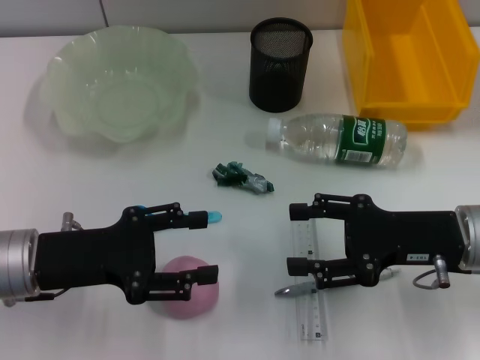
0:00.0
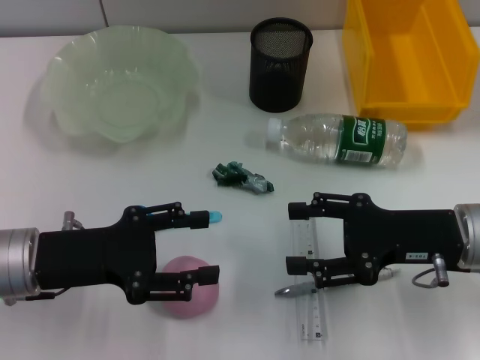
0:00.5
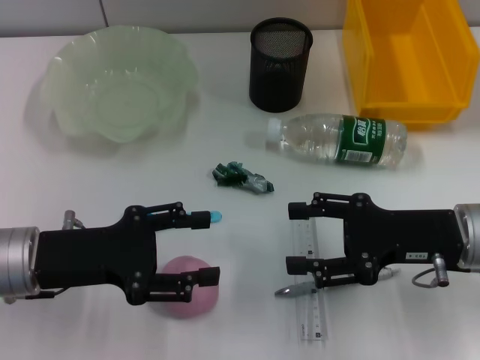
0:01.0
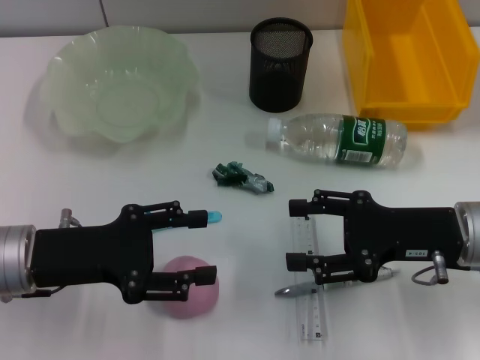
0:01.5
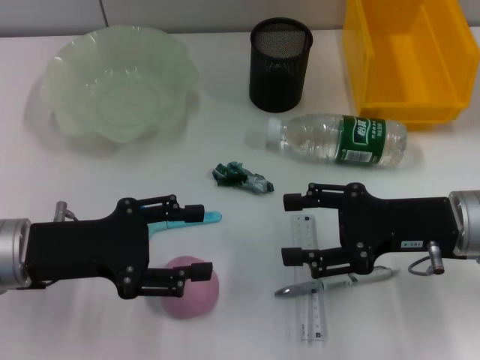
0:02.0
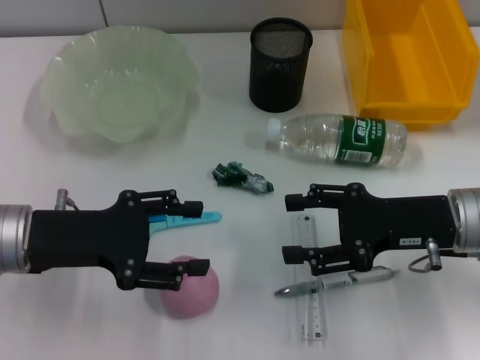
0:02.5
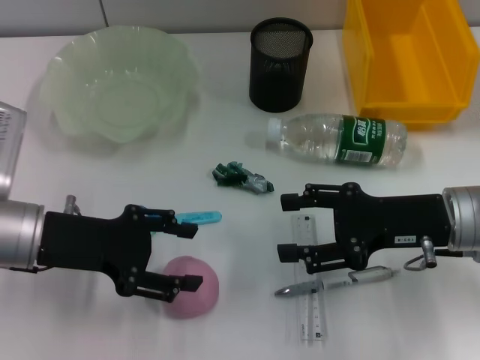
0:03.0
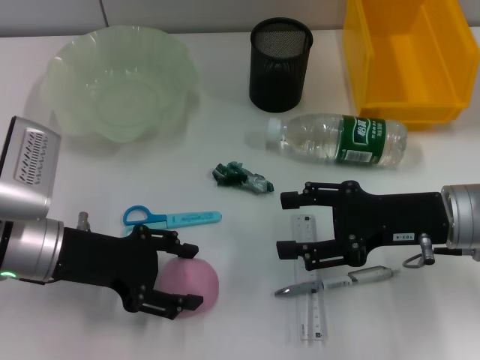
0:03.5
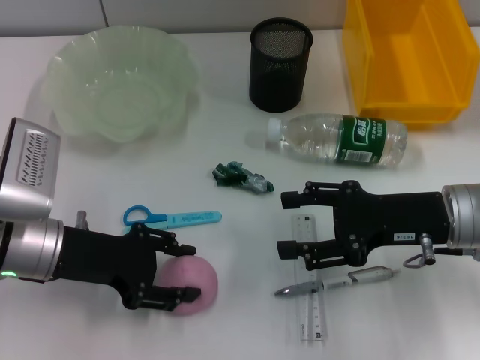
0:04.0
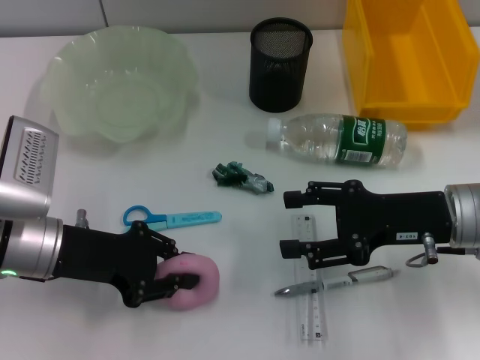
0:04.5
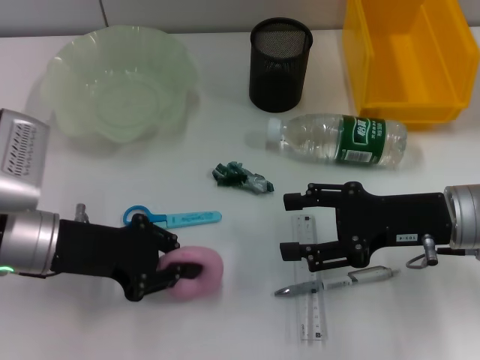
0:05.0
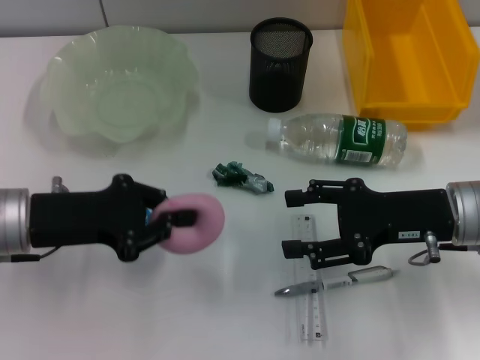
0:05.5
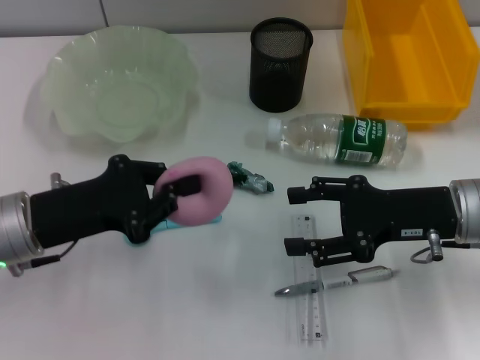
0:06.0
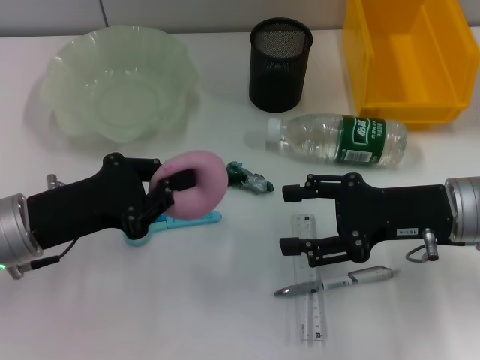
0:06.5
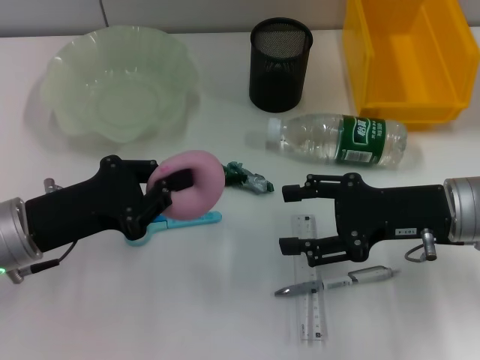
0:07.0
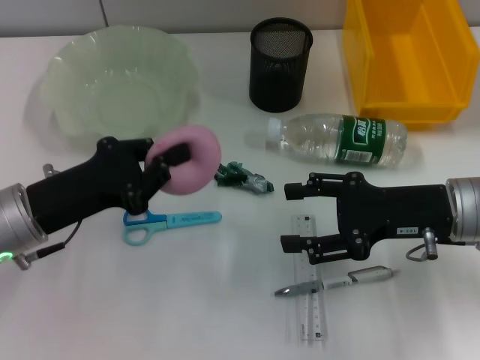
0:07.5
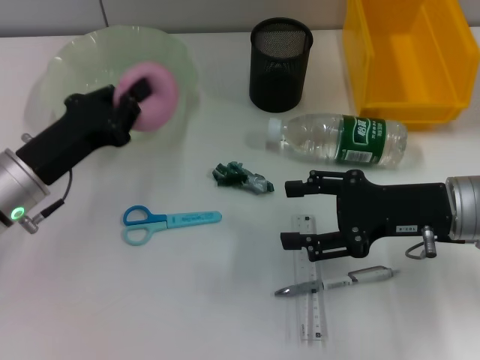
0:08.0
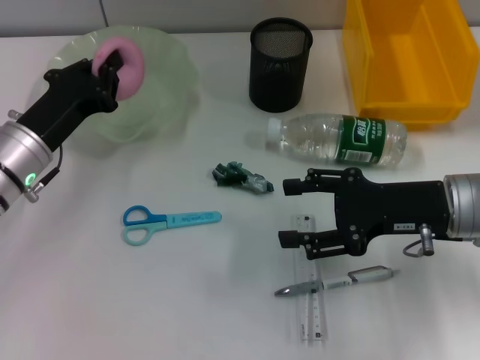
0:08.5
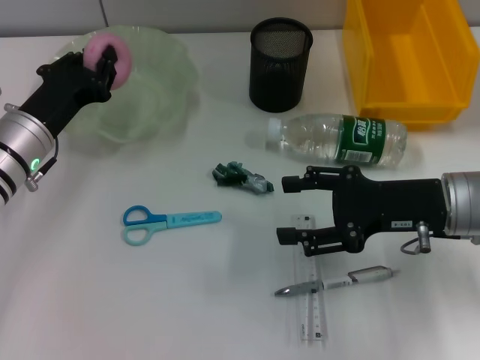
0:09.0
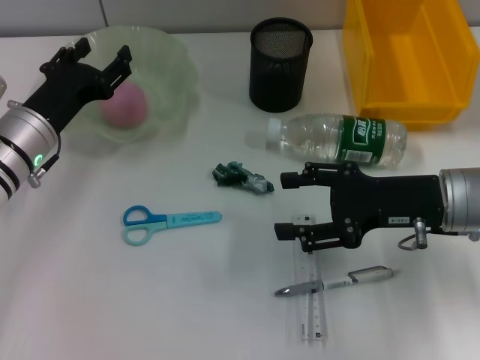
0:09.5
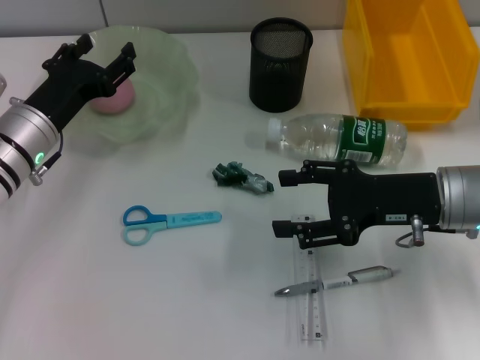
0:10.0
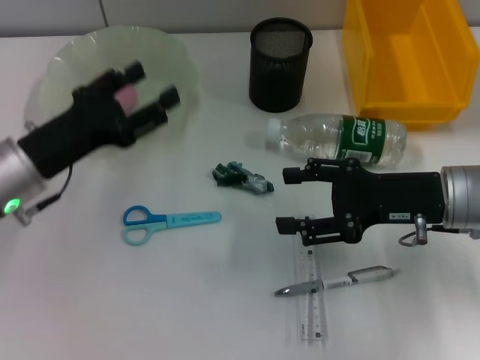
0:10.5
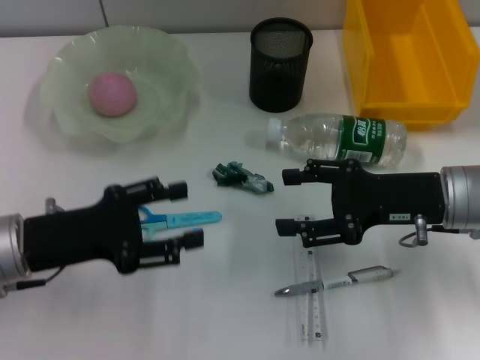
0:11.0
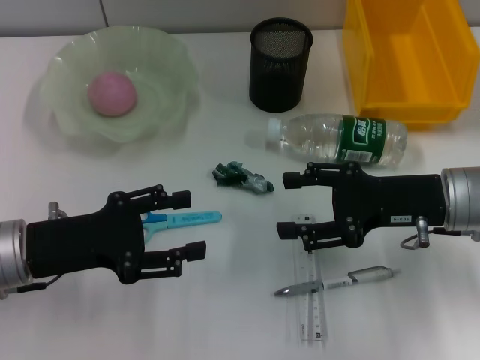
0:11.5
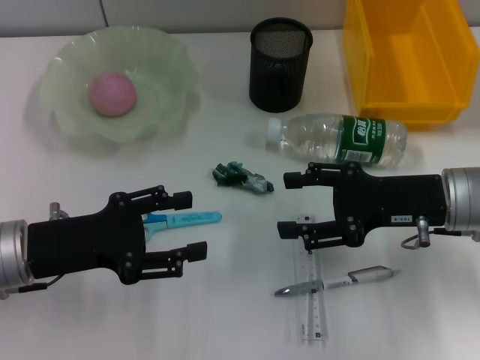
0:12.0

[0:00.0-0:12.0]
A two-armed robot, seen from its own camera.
Step, 0:00.0 to 0:04.0: Grab the peach with the left hand.
Step, 0:04.5 to 0:09.5: Place the peach into the fruit bowl with the left hand.
0:00.0 to 0:02.0: The grippers make only small movements.
0:04.0 to 0:06.0: The left gripper closes its fingers.
0:08.0 to 0:10.0: The left gripper moves forward, roughly 5 cm, and opens its fingers.
0:10.0 to 0:12.0: The left gripper is displaced backward by some 10 cm.

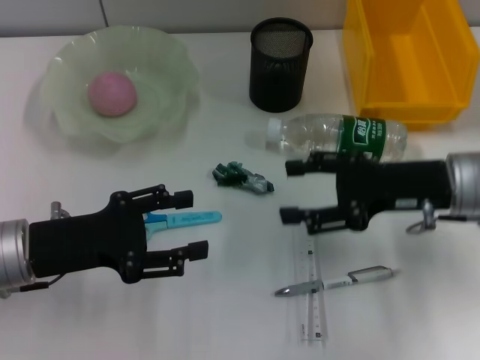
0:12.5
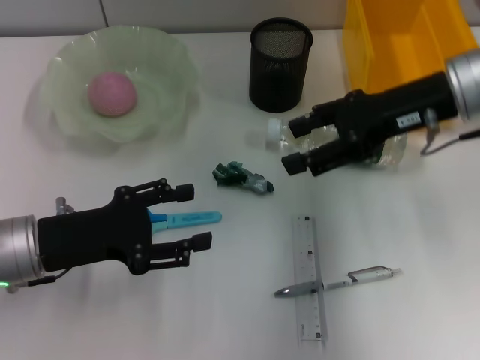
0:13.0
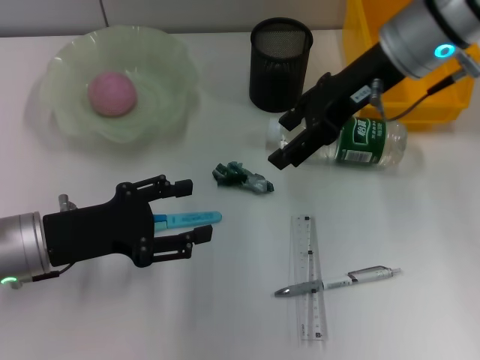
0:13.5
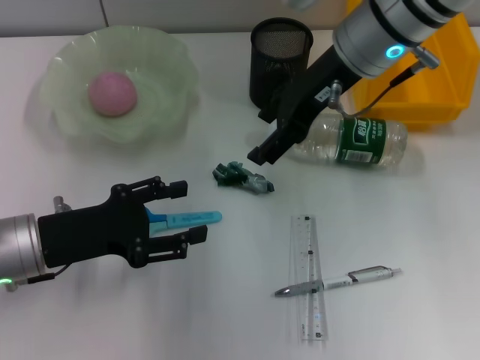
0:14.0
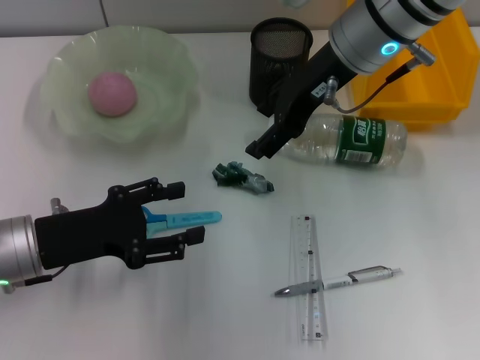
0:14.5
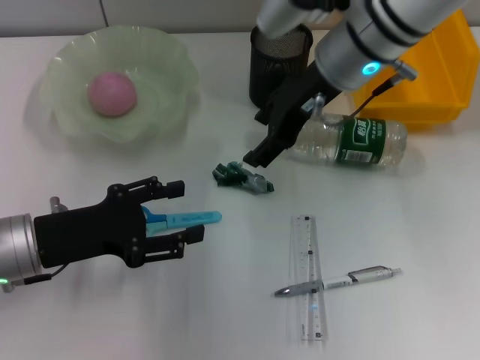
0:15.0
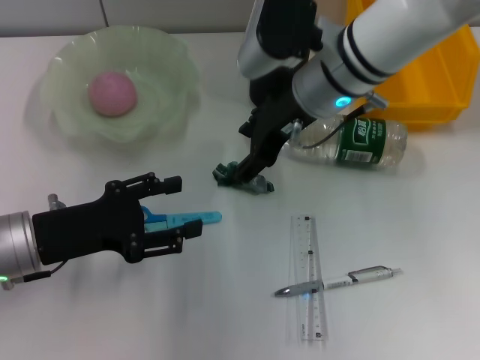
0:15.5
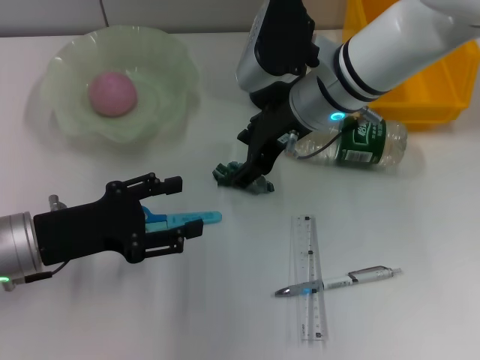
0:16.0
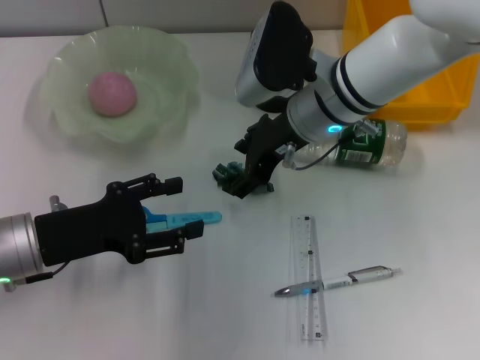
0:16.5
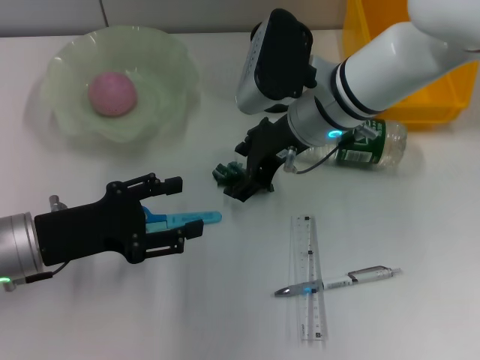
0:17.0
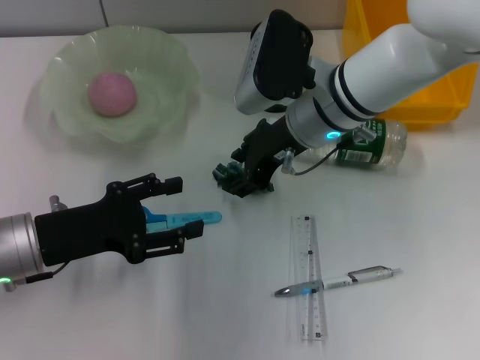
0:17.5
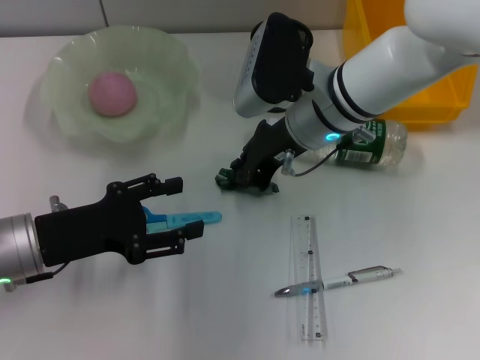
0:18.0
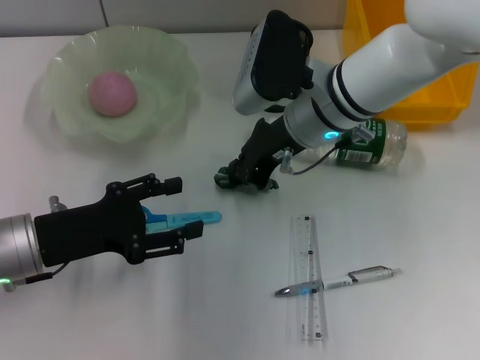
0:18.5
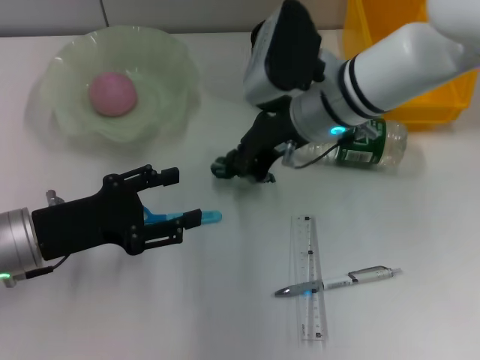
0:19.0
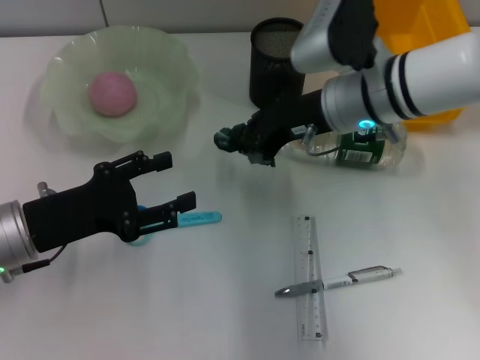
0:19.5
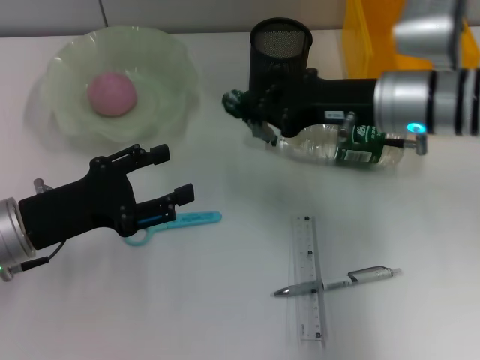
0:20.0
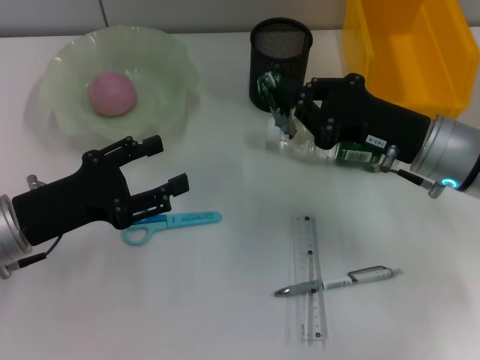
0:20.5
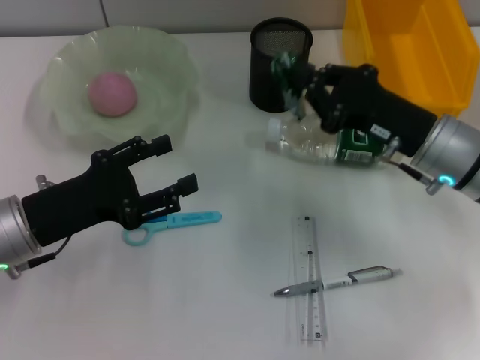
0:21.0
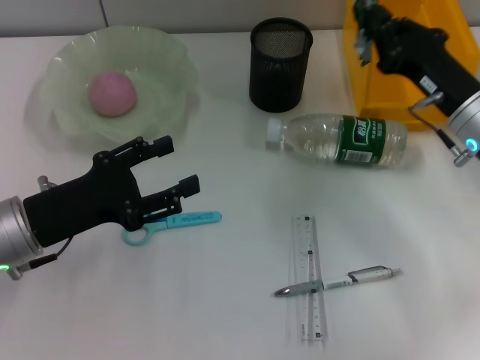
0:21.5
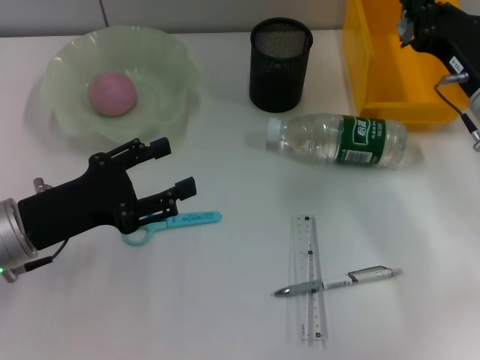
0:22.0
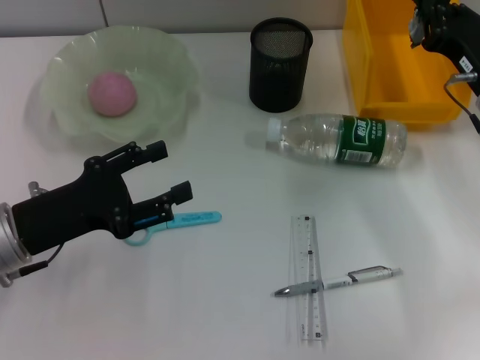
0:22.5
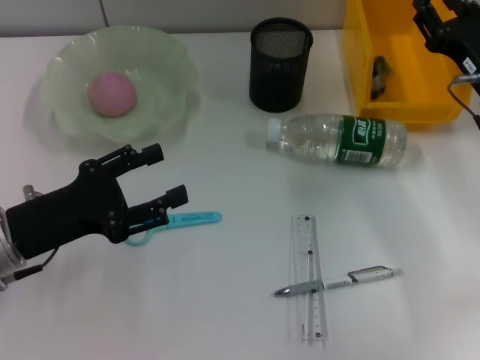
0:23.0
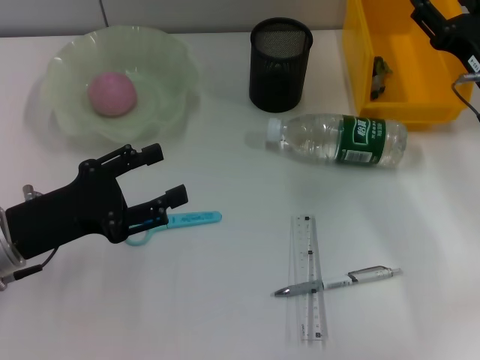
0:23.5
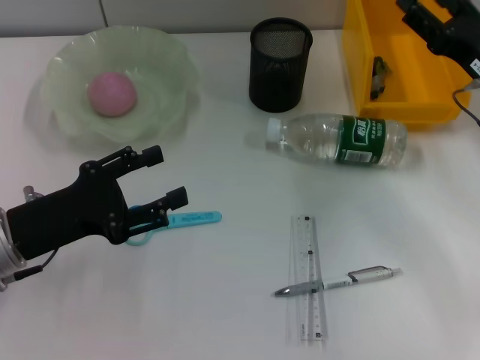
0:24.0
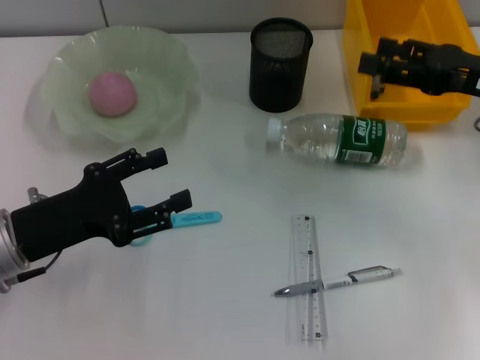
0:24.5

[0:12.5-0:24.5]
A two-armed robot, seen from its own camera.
Step, 0:12.5 to 0:18.0: Grab the plastic with the right hand.
Step, 0:18.5 to 0:22.5: Place the plastic into the trash can with the right hand.
0:12.5 to 0:14.5: The right gripper heads to the left, upward and forward, covering roughly 20 cm.
0:14.5 to 0:16.5: The right gripper is displaced downward by about 10 cm.
0:16.5 to 0:18.5: The right gripper closes up.
0:18.5 to 0:20.5: The right gripper is displaced to the right and backward by roughly 15 cm.
0:20.5 to 0:22.5: The right gripper goes some 5 cm to the right.
0:22.5 to 0:24.5: The right gripper travels upward by some 5 cm, and opens its fingers.

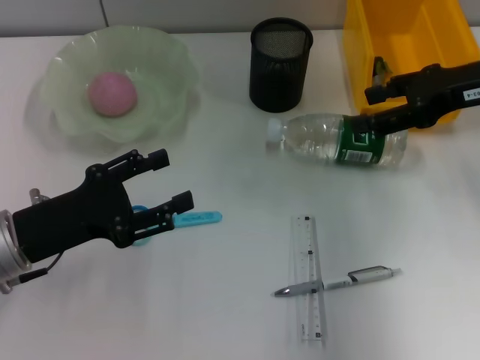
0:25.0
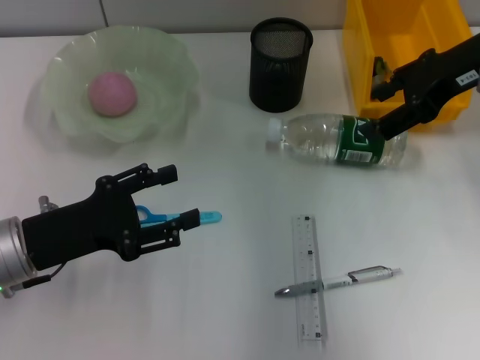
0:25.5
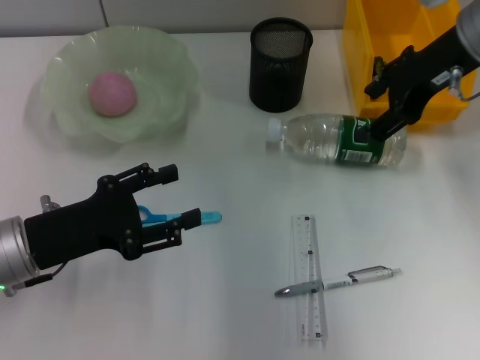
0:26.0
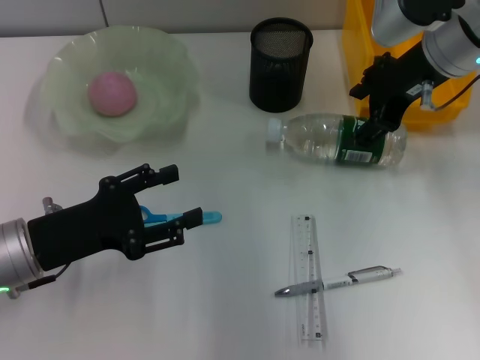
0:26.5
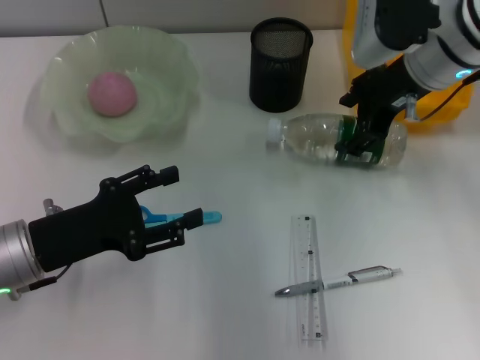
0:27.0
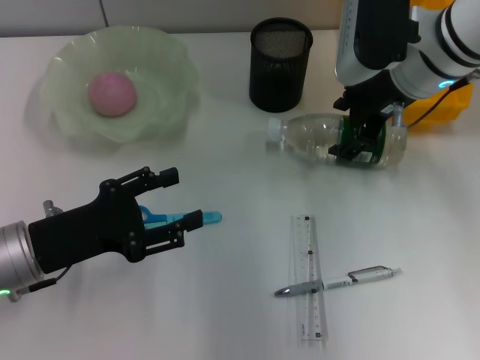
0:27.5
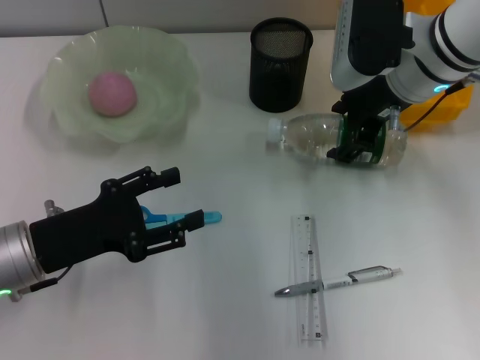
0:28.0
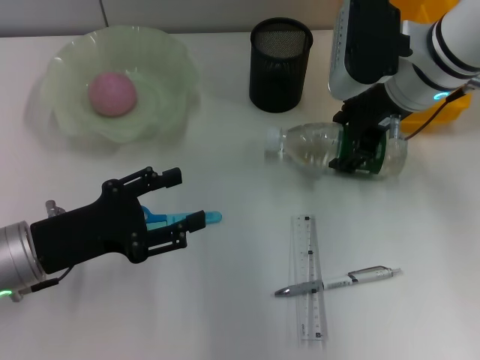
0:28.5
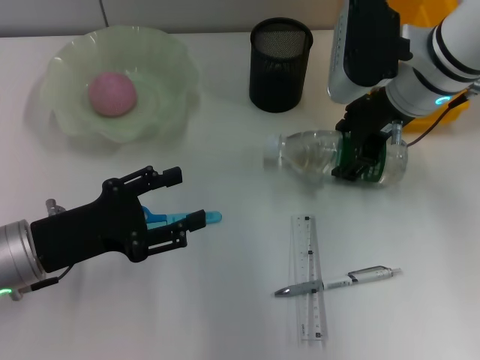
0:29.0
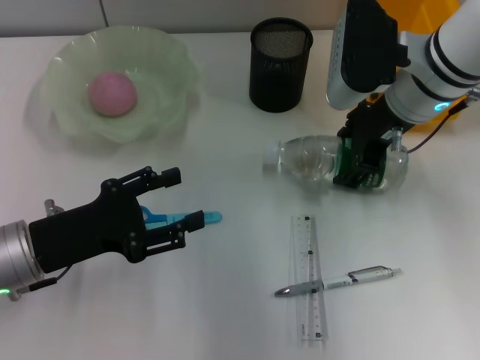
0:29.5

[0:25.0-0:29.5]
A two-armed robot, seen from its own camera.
0:25.0 to 0:27.0: The right gripper is displaced to the left by roughly 10 cm.
0:27.0 to 0:29.5: There are only small adjustments of the grippers.
